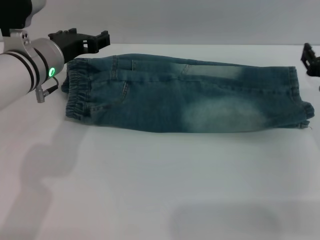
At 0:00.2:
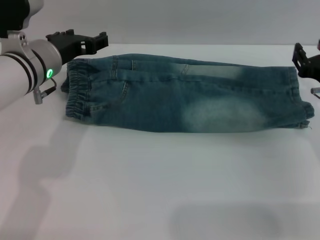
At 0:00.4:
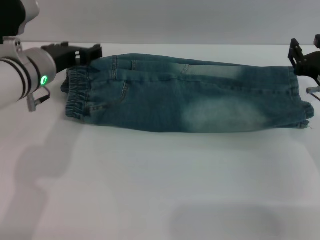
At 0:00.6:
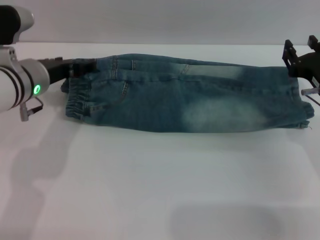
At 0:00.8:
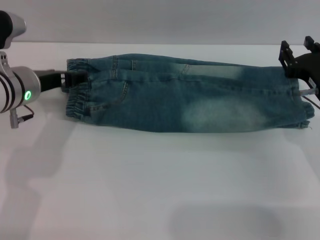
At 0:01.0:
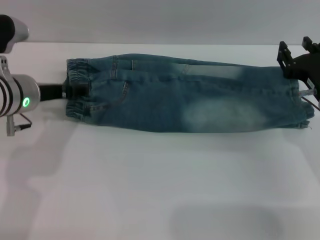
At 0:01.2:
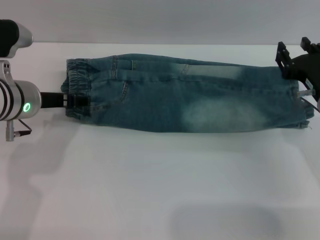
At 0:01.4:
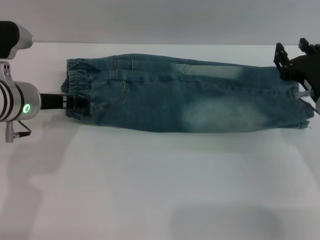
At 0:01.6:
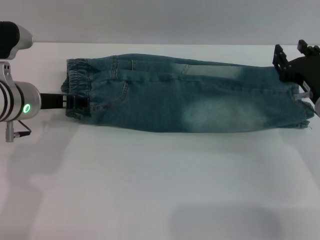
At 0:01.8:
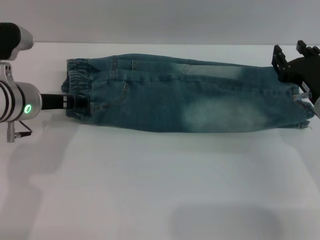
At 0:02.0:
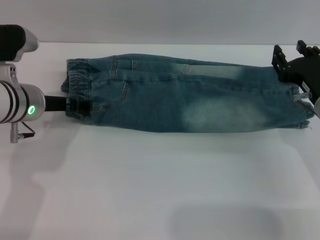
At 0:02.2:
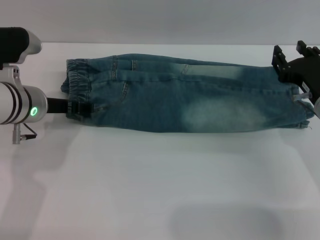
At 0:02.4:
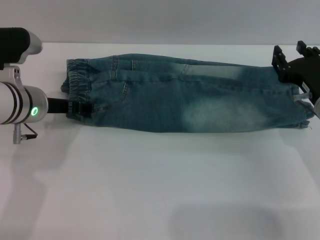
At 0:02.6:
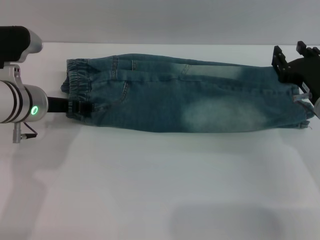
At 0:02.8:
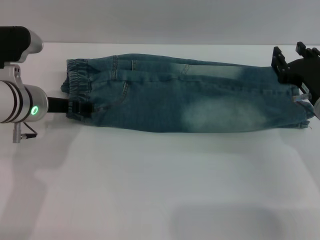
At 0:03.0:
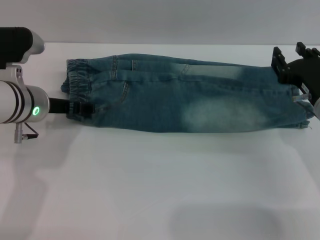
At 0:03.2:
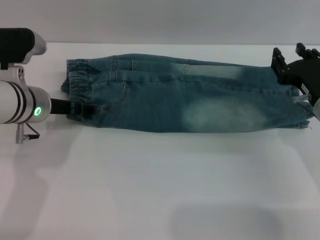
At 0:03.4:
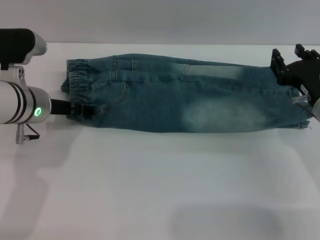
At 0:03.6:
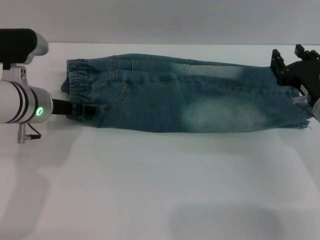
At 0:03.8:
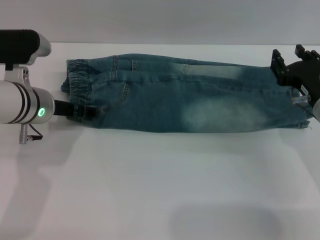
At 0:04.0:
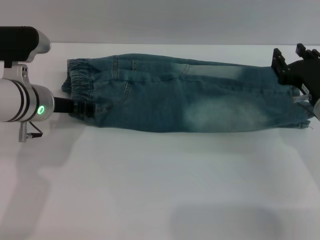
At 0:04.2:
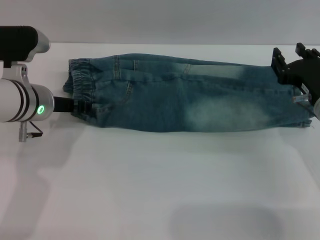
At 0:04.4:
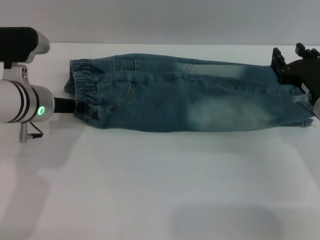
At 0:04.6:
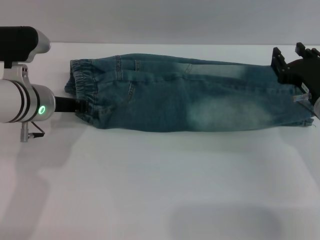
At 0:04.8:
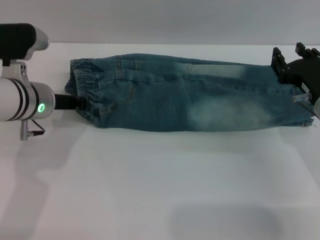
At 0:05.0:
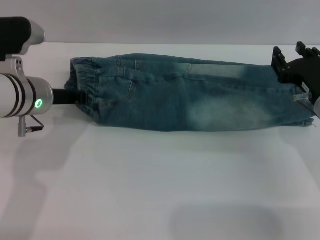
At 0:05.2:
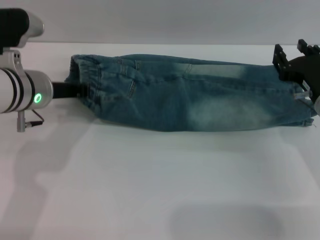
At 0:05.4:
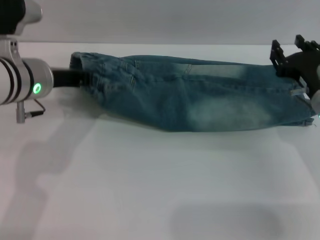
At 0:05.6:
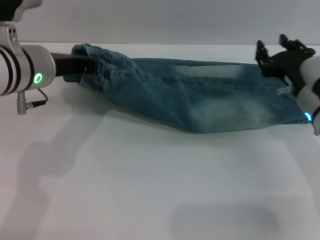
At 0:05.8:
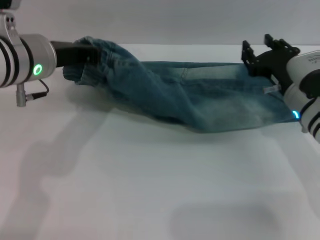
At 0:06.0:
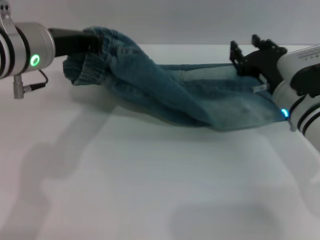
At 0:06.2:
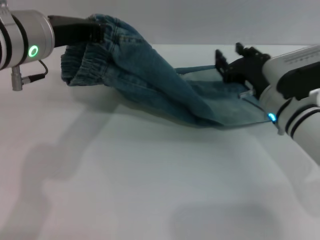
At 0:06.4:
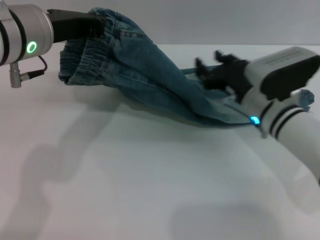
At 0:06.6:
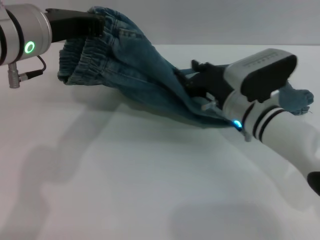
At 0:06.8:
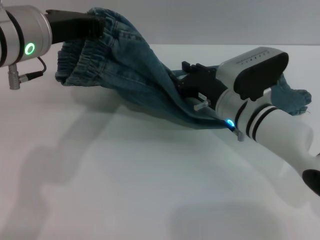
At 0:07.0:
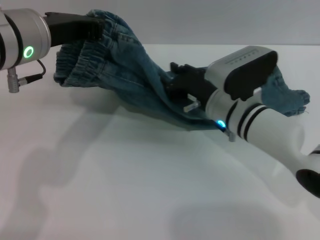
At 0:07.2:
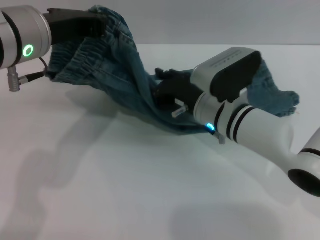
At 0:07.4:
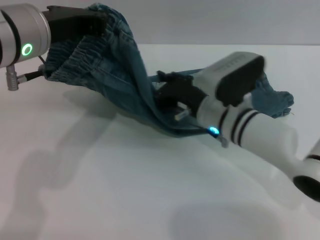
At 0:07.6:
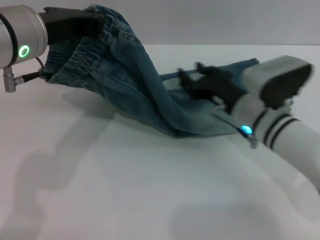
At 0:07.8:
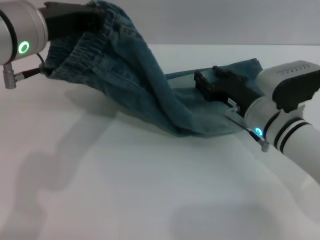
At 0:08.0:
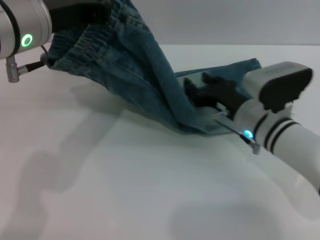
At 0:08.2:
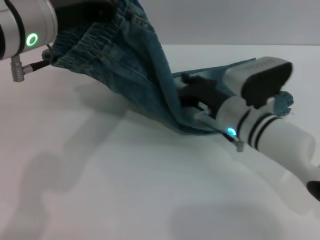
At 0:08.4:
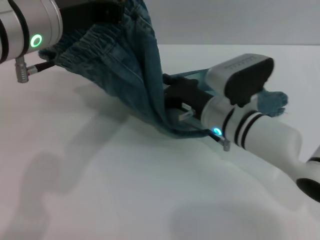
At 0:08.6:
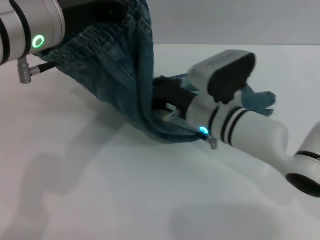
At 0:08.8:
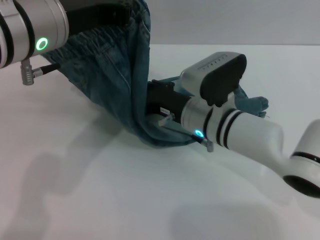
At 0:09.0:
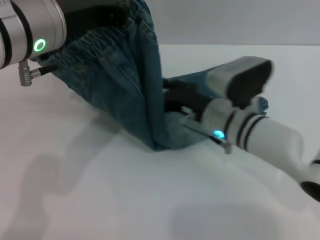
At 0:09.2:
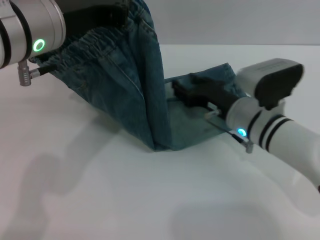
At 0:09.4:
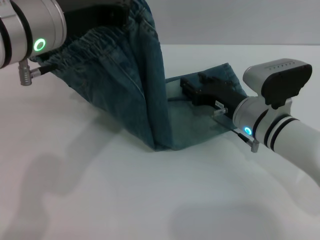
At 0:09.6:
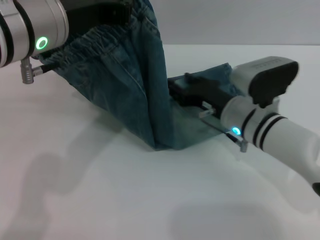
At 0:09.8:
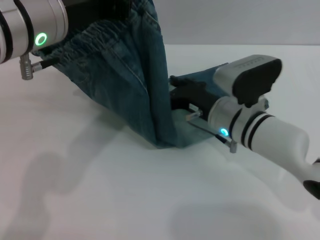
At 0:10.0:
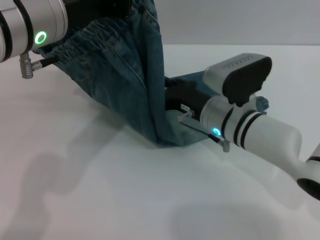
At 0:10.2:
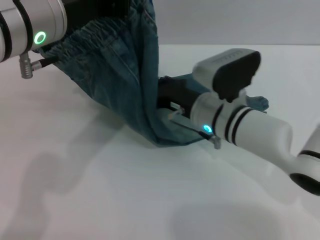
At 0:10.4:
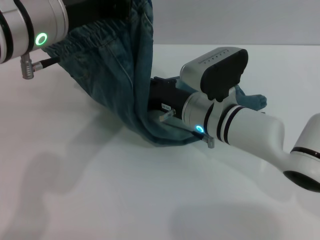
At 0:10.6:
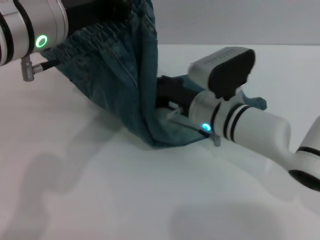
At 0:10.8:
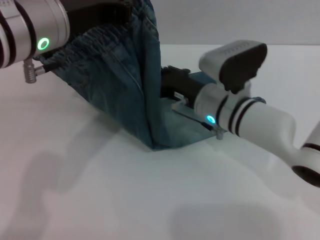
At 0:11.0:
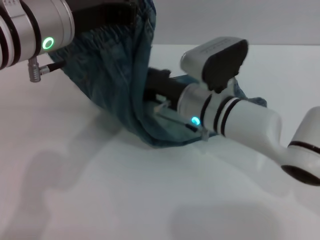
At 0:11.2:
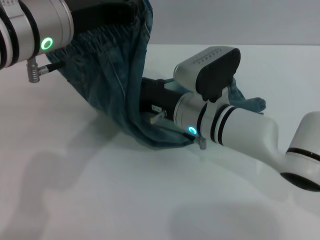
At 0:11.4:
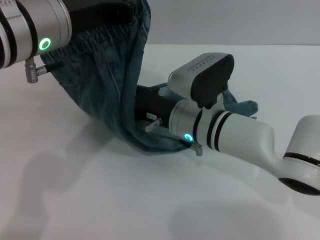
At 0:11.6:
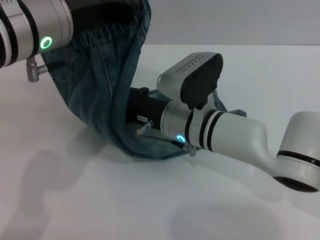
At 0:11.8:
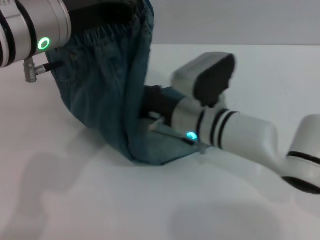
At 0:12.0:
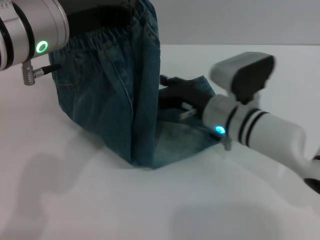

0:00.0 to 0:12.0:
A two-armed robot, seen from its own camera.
0:01.6 to 0:03.0: There are only small adjustments of the grippers.
0:03.0 to 0:04.4: The left gripper closes.
0:04.4 to 0:06.0: The right gripper shifts by some 5 cm. The left gripper goes approximately 10 cm upward, and closes its fingers.
0:09.0 to 0:10.4: The grippers make only small movements.

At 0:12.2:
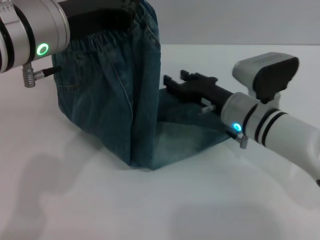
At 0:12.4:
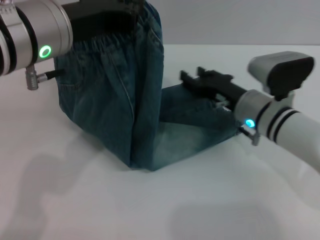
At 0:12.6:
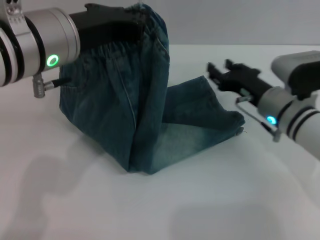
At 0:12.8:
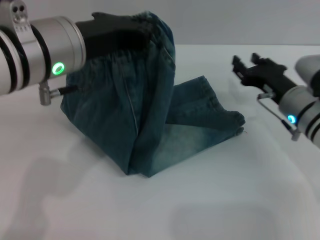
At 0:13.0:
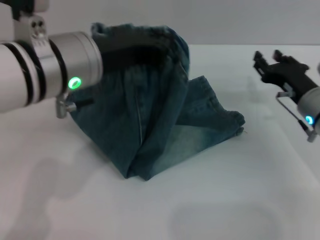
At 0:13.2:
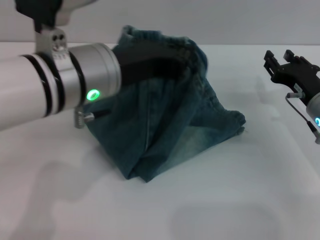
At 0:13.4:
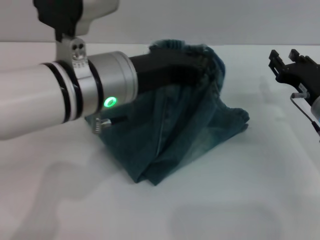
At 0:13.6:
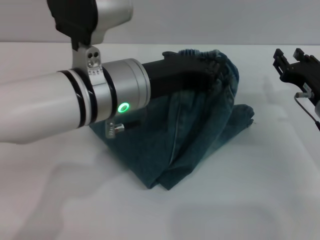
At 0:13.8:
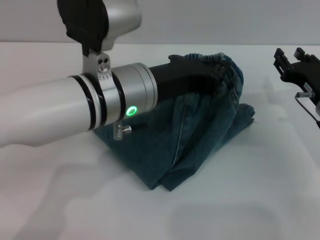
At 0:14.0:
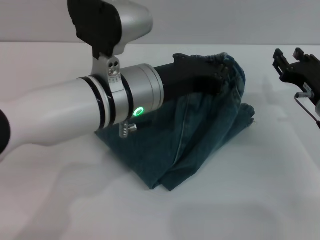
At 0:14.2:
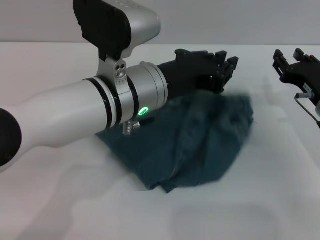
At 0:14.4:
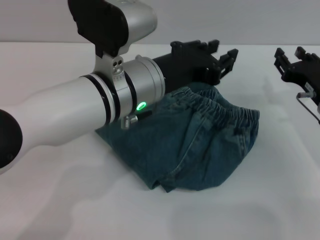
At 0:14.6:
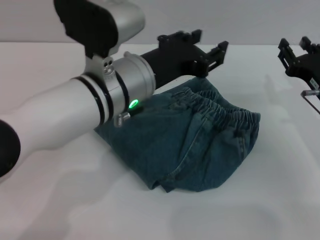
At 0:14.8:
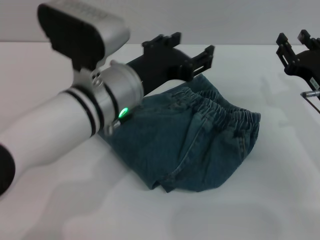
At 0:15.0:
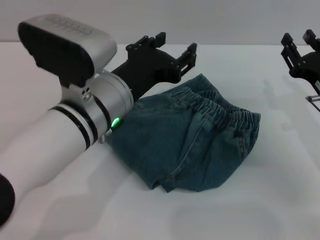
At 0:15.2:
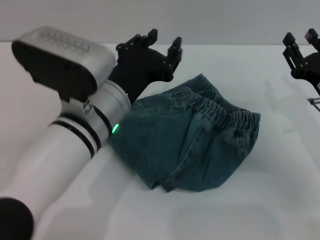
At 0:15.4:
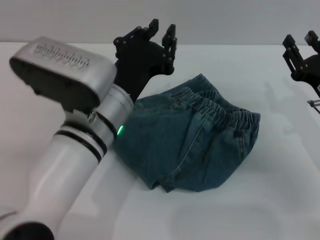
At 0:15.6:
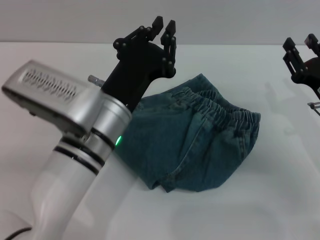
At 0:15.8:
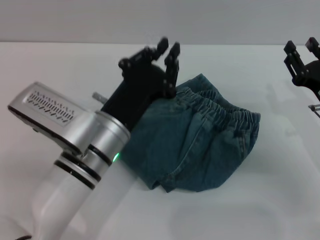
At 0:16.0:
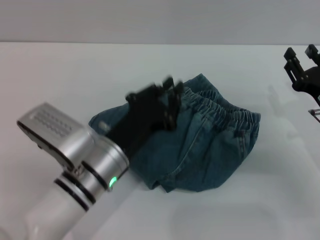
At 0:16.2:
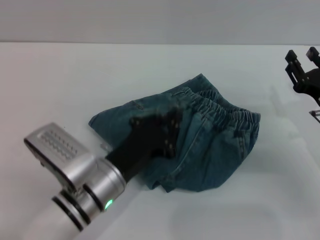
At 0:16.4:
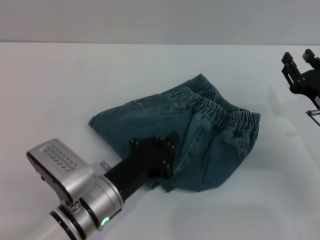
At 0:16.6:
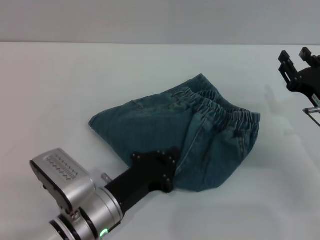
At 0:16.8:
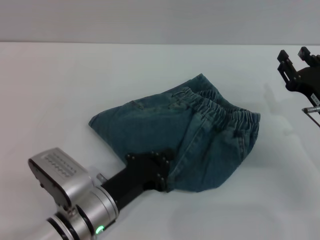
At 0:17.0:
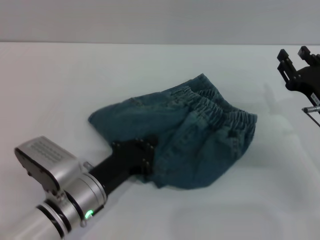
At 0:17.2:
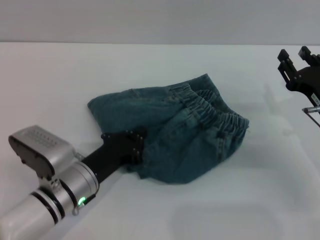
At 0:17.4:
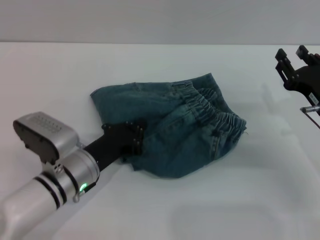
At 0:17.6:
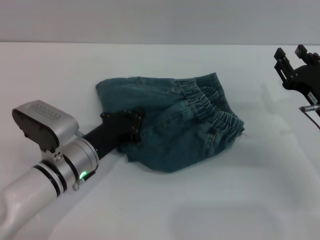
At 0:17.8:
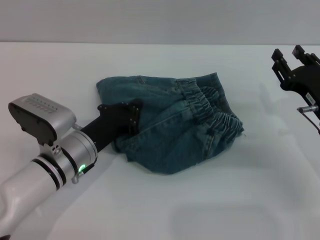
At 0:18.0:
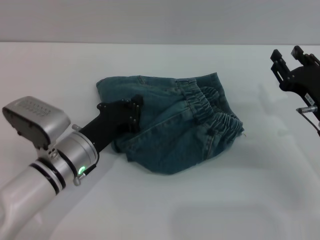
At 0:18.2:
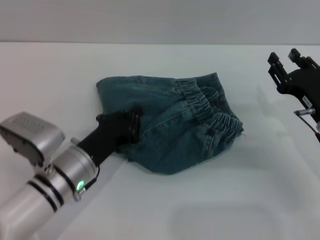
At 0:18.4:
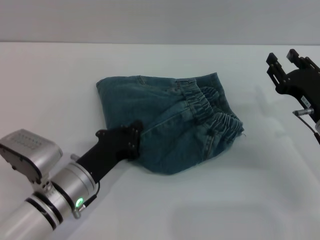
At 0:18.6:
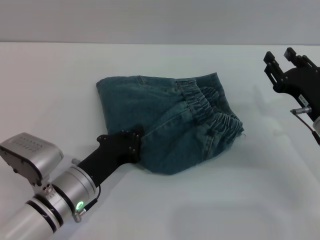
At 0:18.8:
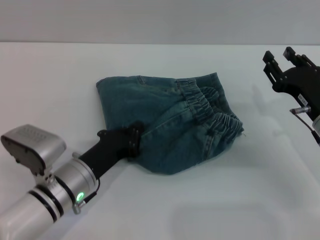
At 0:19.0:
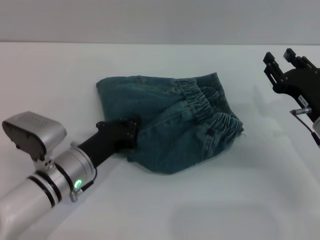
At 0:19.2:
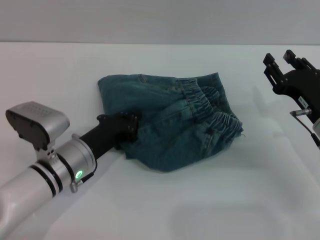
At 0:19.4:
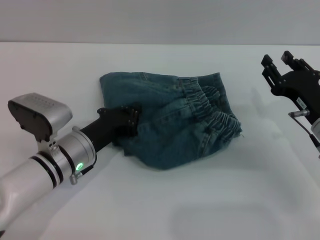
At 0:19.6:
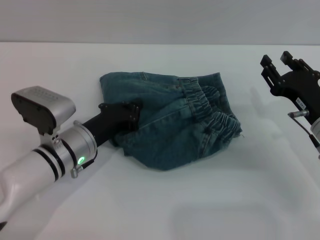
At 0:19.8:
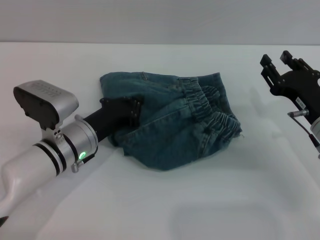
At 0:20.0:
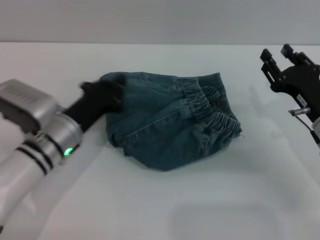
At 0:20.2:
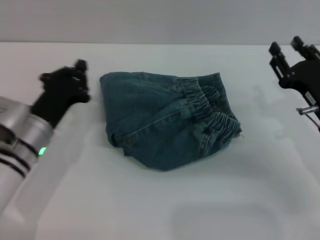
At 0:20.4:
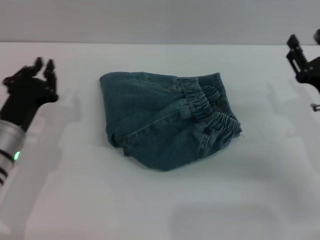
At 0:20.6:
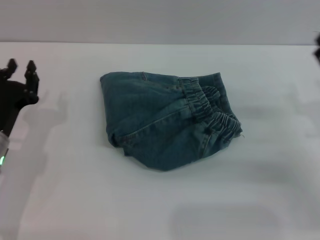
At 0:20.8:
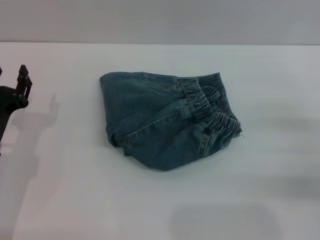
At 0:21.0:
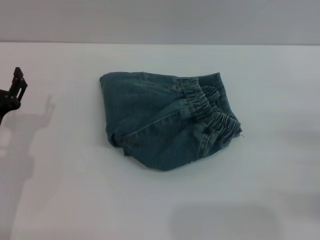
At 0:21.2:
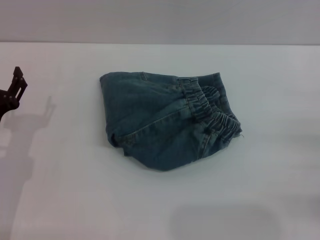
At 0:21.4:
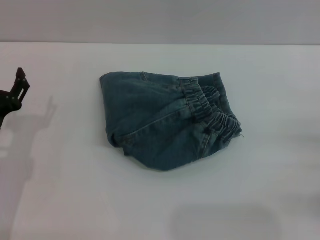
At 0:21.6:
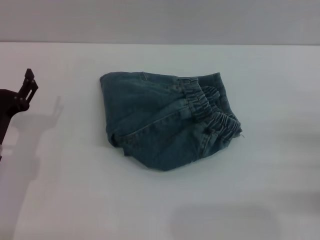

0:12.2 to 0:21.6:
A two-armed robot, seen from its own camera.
Step, 0:12.2 to 0:15.0: Fold the pants from left to right with the left gripper.
Step, 0:15.2 to 0:20.0: Place the folded trousers onto the center area with the left grippers.
0:12.2 to 0:13.8: The right gripper heads to the right, covering approximately 15 cm. Meanwhile the left gripper shifts approximately 10 cm to the right and downward.
0:13.8 to 0:15.4: The left gripper moves downward, approximately 5 cm, and opens, then closes again.
0:15.4 to 0:17.0: The left gripper heads downward and to the left, covering approximately 15 cm, and closes its fingers.
0:18.4 to 0:20.0: The left gripper is displaced forward by approximately 5 cm.
0:20.0 to 0:21.6: The right gripper goes some 15 cm to the right and backward, and opens up. Meanwhile the left gripper goes roughly 10 cm to the left, and opens.
